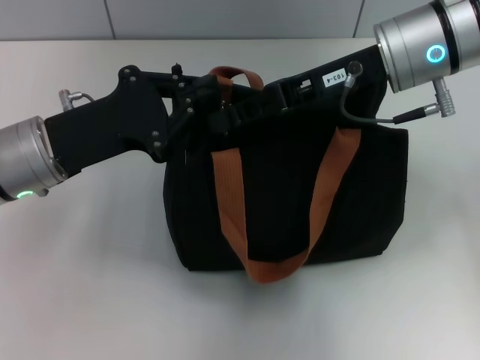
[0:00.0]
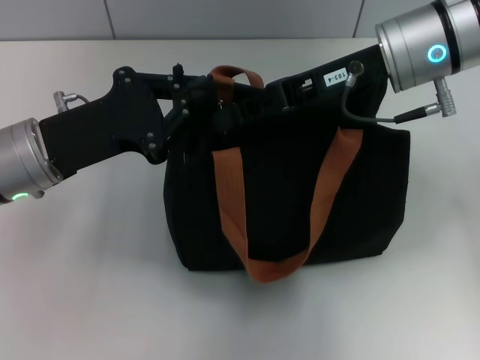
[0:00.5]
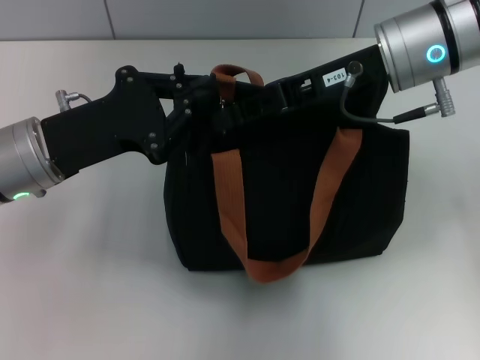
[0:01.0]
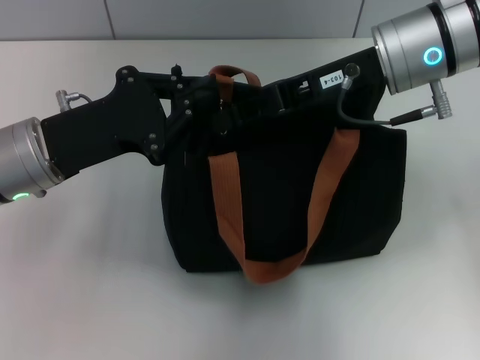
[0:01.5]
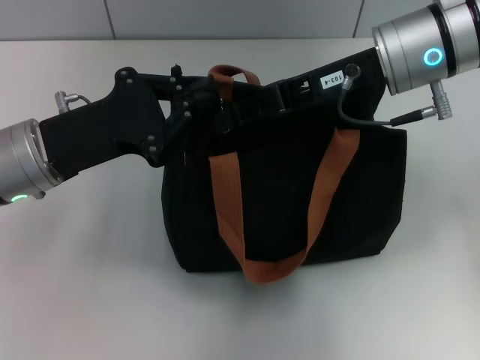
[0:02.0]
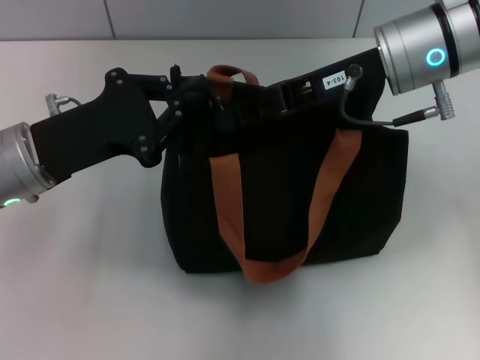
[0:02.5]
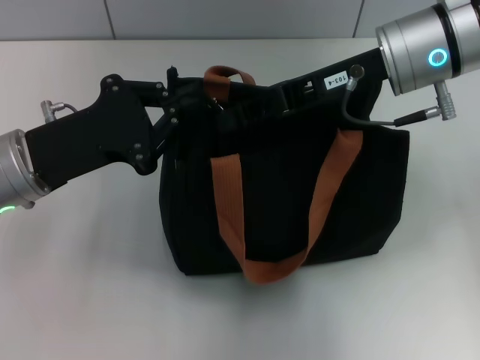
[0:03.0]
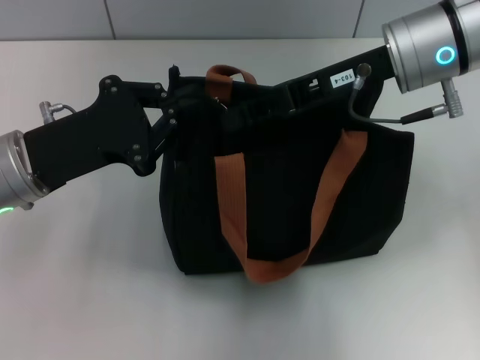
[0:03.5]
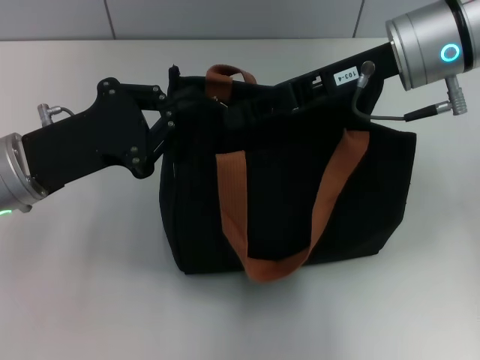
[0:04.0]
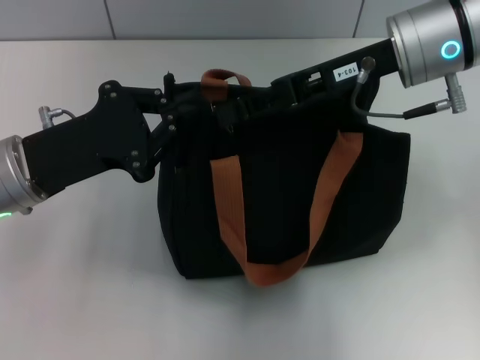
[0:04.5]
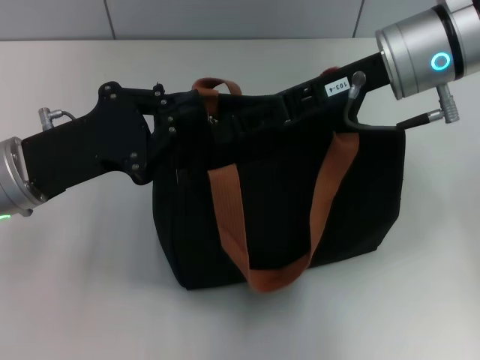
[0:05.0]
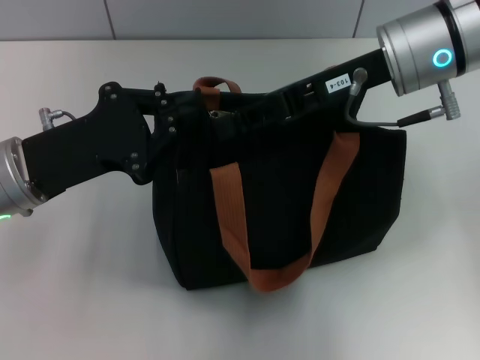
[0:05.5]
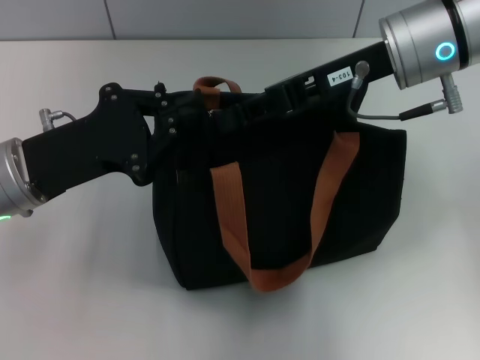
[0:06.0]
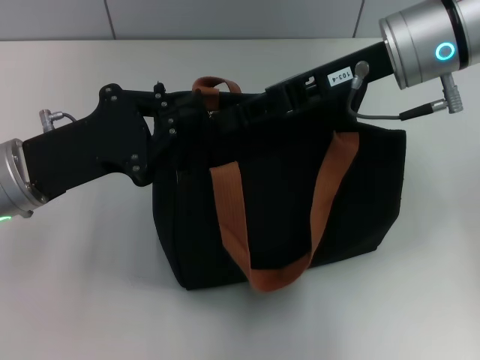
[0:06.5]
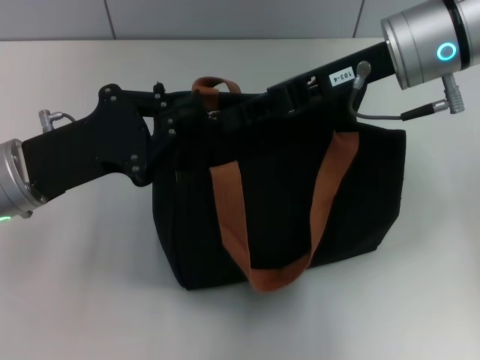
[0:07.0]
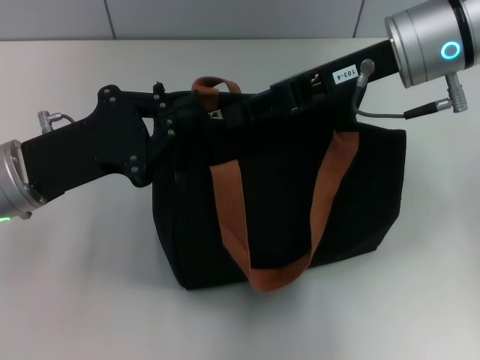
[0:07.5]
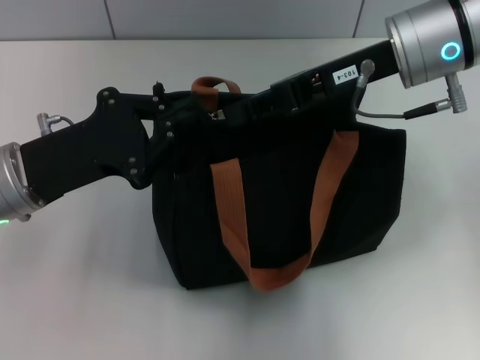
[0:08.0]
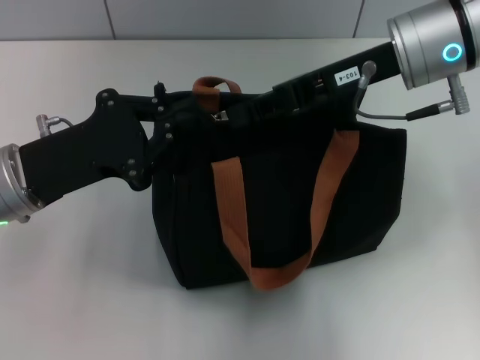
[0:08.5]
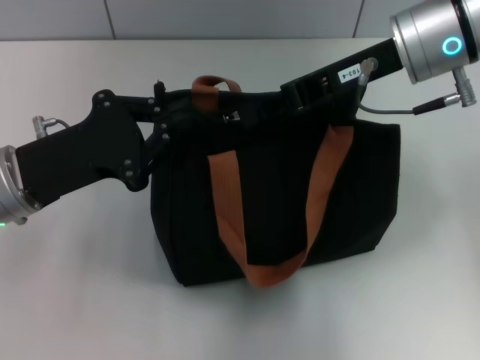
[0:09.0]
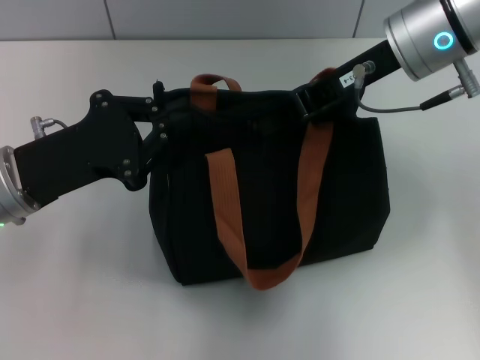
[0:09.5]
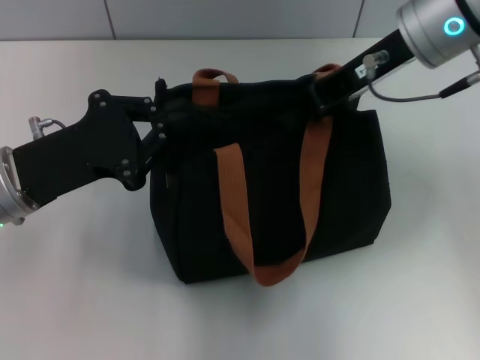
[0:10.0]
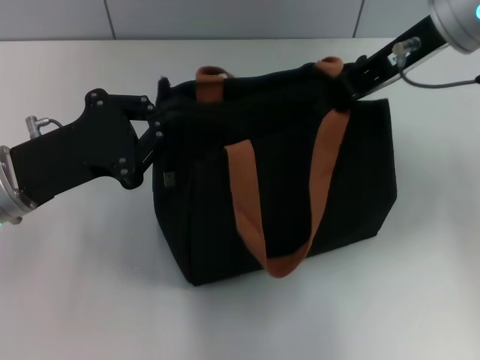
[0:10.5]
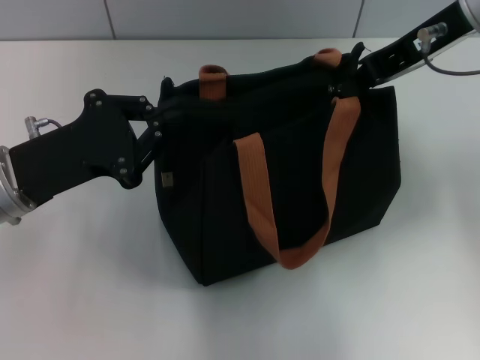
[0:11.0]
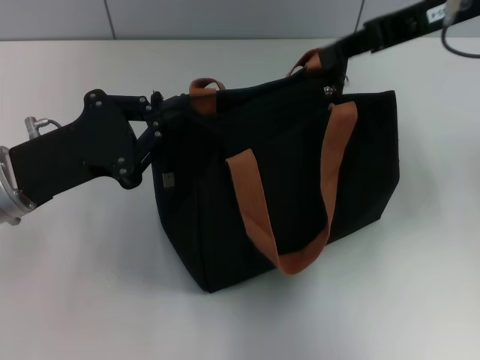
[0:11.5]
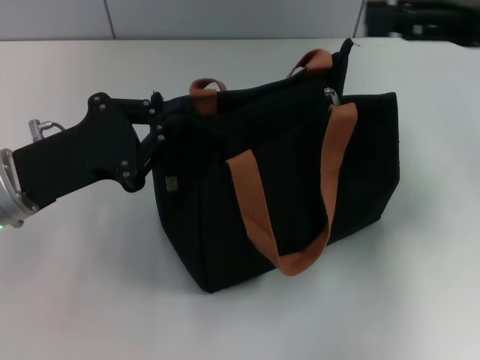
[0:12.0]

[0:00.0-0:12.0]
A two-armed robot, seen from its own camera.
Step, 0:00.0 to 0:11.5: Pull up the zipper with your right hand.
0:00.0 to 0:02.0: The two grippers keep their place.
0:02.0 to 0:04.0: There are only small adjustments of the grippers.
0:04.0 to 0:08.0: Both grippers stay put.
0:10.0 to 0:12.0: The right gripper shifts roughly 15 cm to the right and backward, and opens its fingers.

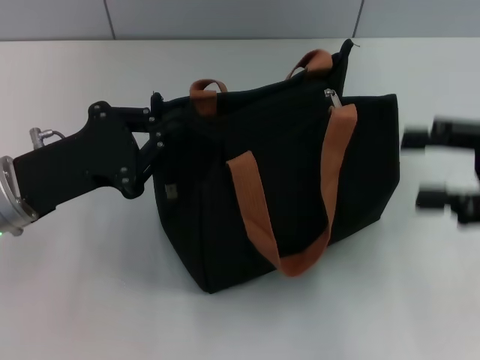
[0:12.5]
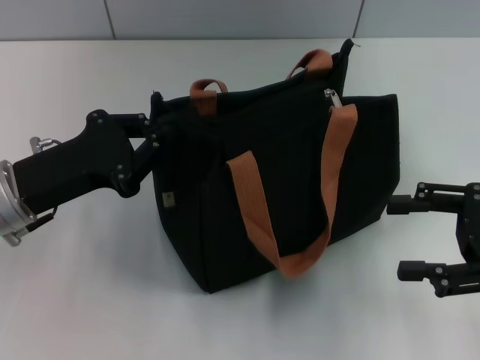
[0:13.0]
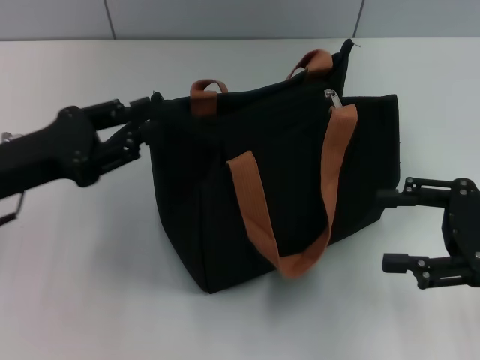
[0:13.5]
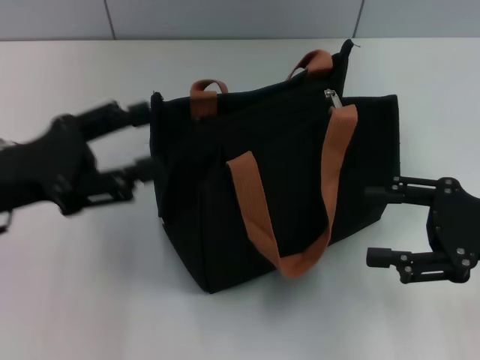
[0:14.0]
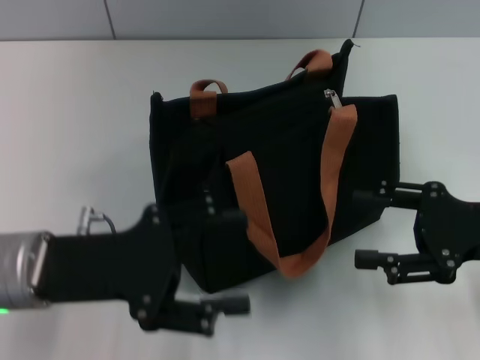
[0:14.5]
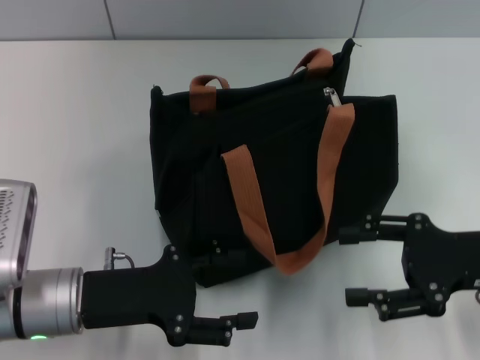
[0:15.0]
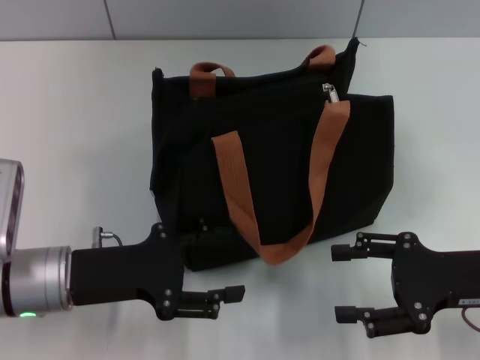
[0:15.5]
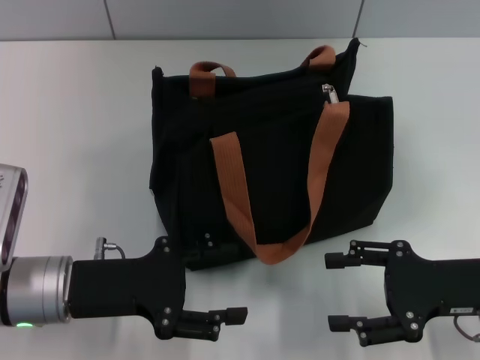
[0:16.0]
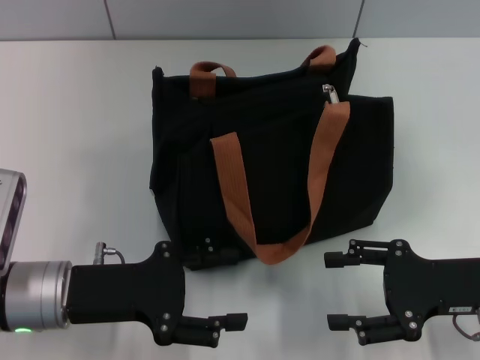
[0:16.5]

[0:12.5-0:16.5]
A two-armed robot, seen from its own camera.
Step, 0:12.5 to 0:13.5: Grab the zipper with your left hand.
0:12.5 to 0:14.5: The left gripper moves about 5 cm, and opens up; the right gripper moves downward, about 5 cm.
0:14.5 to 0:16.5: The right gripper moves some 5 cm.
